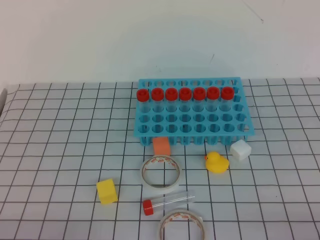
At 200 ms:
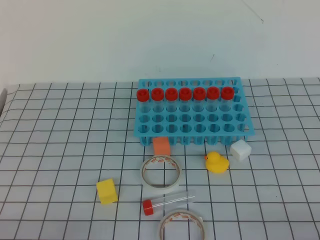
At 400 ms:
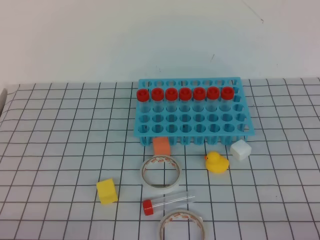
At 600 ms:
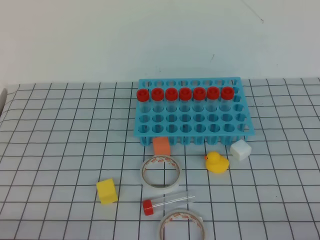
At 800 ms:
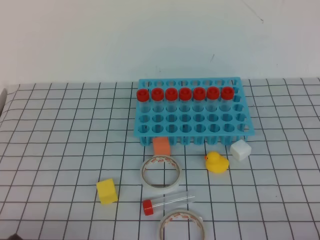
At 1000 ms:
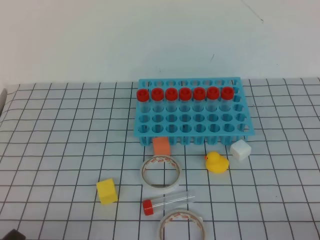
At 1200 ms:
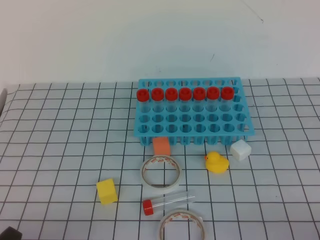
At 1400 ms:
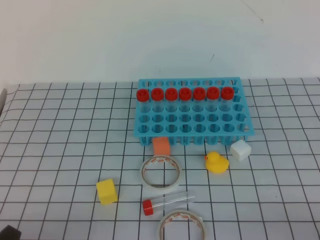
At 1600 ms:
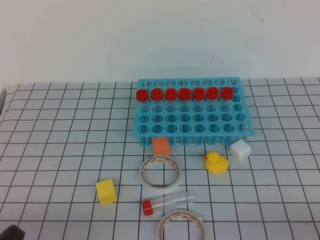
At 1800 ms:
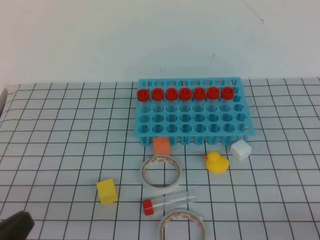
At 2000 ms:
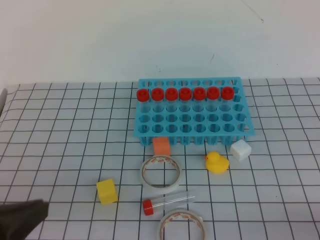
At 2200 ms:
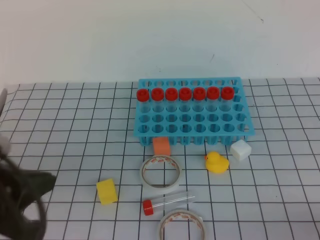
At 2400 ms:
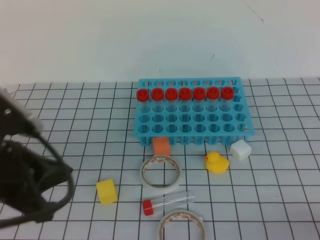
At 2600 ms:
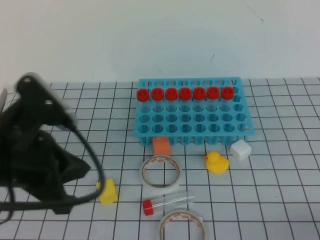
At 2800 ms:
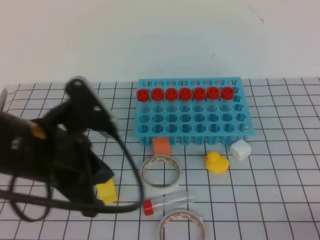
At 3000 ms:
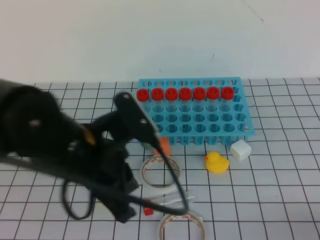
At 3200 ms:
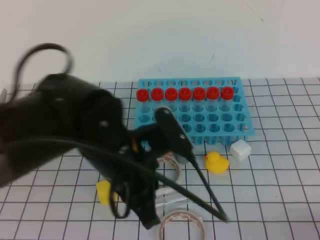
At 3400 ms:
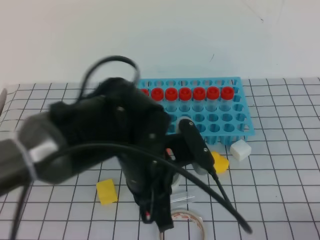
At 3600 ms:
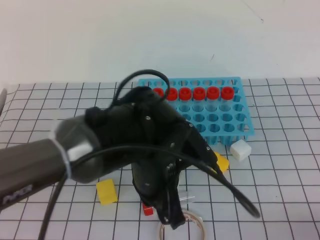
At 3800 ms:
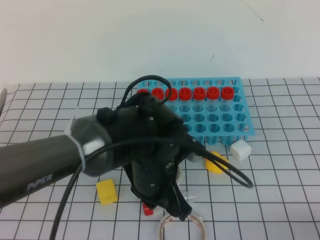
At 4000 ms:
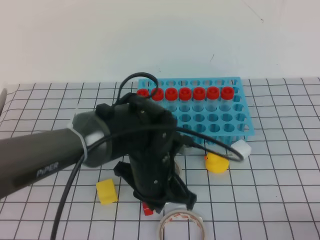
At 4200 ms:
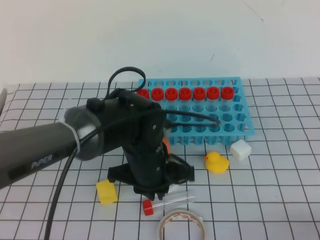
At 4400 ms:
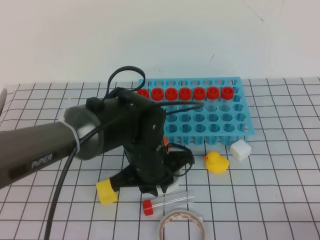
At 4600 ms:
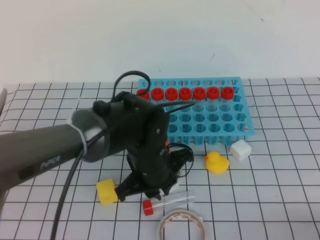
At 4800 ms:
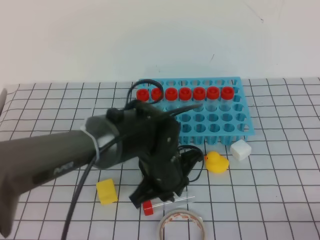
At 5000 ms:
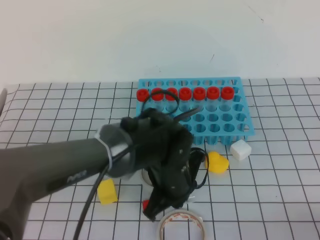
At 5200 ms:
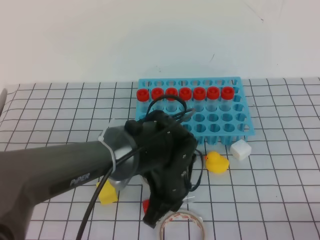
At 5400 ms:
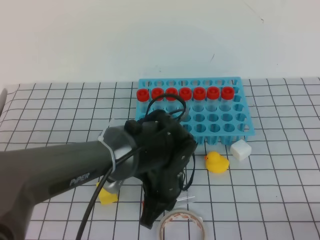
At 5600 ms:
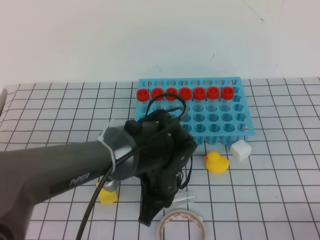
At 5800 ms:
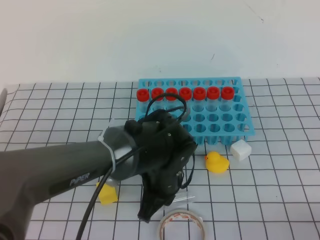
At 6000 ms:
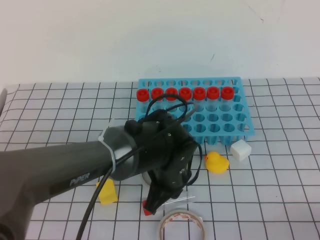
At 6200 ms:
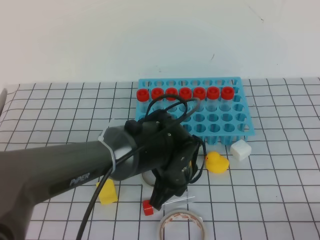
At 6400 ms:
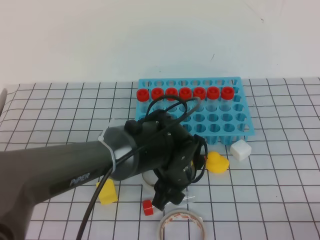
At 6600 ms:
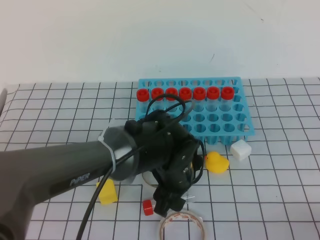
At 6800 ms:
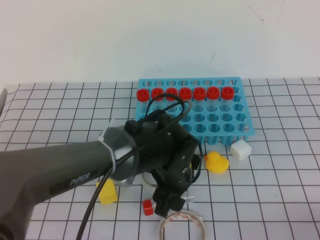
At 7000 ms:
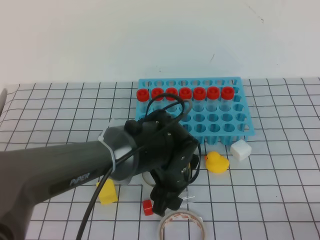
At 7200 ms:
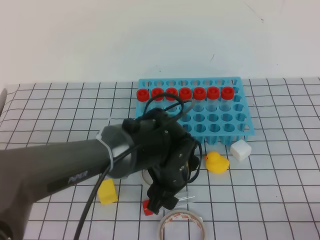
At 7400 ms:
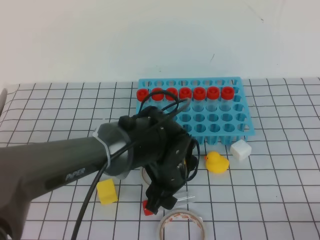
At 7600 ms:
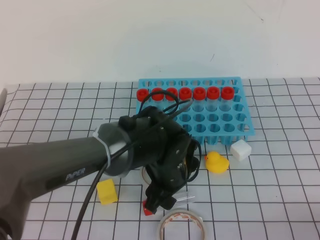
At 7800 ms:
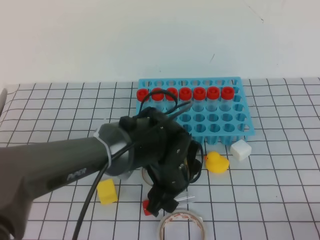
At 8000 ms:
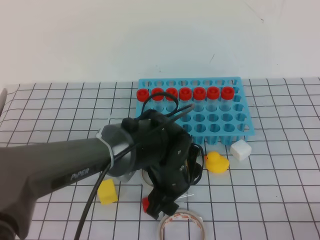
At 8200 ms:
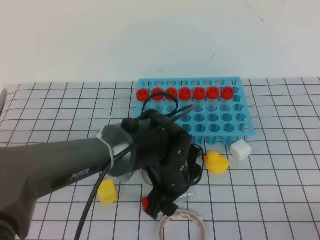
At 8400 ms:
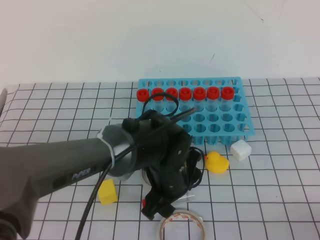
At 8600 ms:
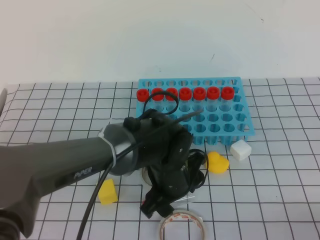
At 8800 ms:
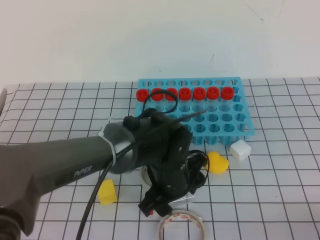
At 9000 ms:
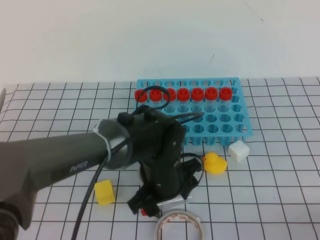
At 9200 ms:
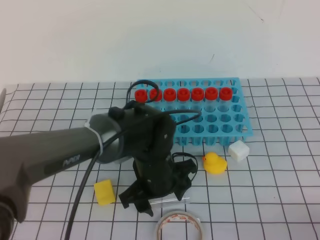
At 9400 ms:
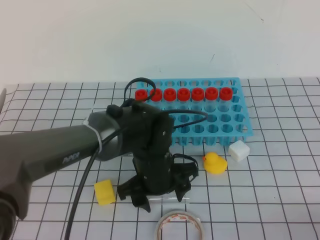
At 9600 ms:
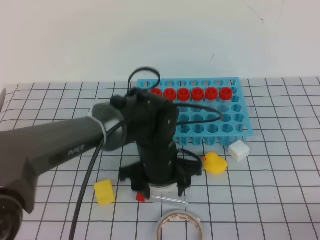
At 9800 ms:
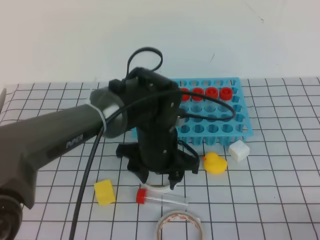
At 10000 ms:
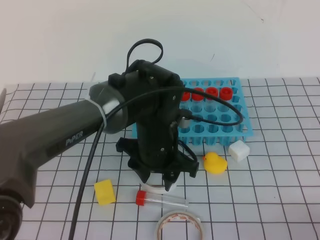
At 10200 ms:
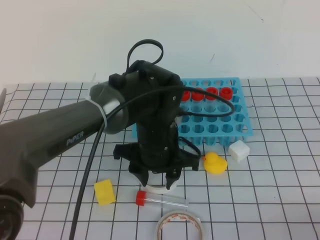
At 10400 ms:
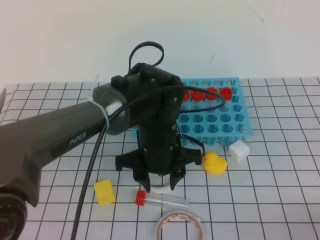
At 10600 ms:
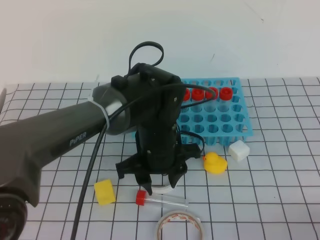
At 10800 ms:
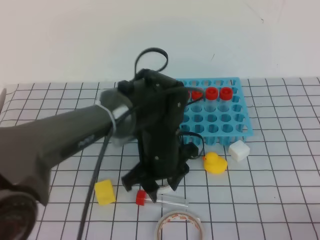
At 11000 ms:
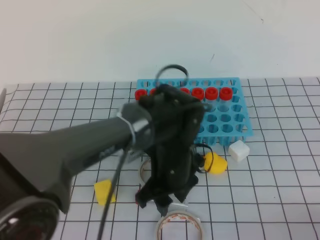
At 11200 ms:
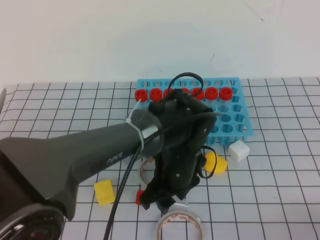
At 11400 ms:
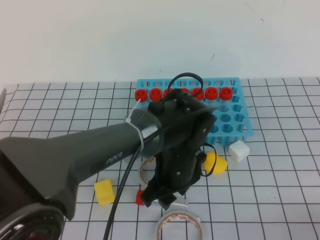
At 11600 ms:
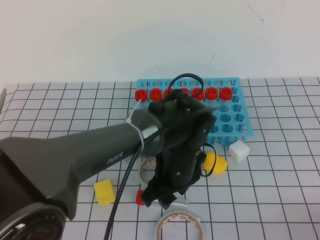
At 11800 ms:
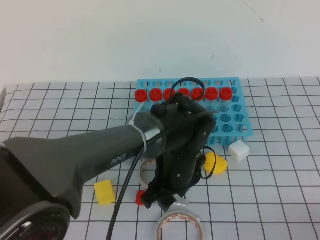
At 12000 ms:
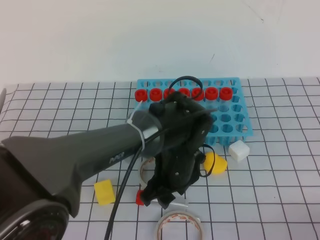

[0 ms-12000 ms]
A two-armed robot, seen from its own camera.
1600 ms to 3000 ms: The left gripper goes roughly 25 cm forward, to the right and upward.
3000 ms to 4400 ms: The left gripper travels downward, to the right and forward by approximately 15 cm.
6000 ms to 7600 ms: The left gripper opens.
9000 ms to 10400 ms: The left gripper changes place by approximately 5 cm.
10400 ms to 12000 ms: The left gripper moves roughly 5 cm.

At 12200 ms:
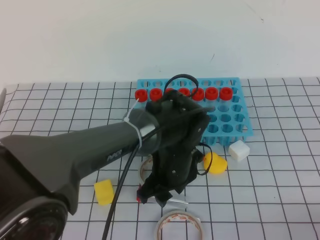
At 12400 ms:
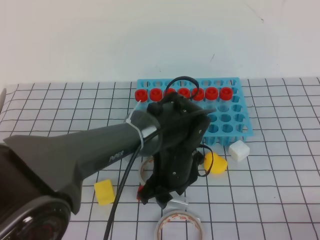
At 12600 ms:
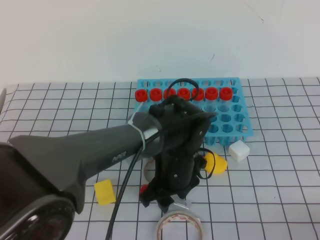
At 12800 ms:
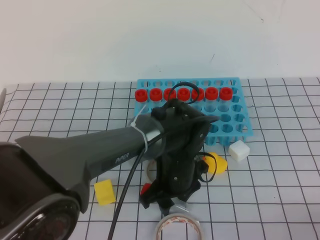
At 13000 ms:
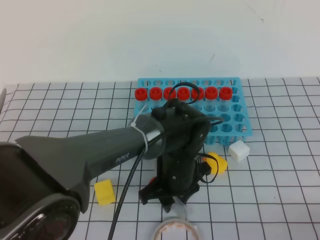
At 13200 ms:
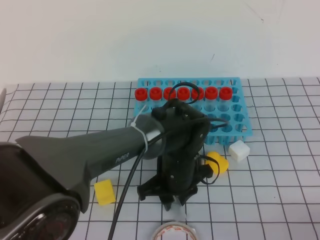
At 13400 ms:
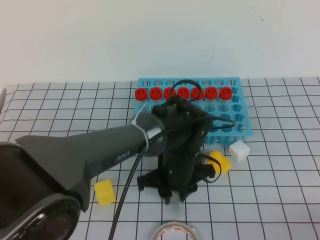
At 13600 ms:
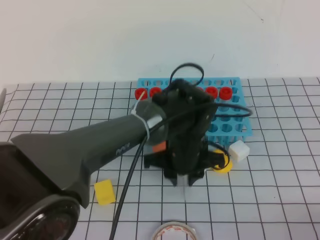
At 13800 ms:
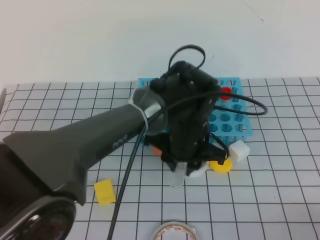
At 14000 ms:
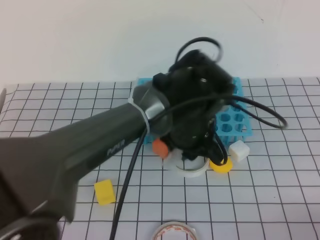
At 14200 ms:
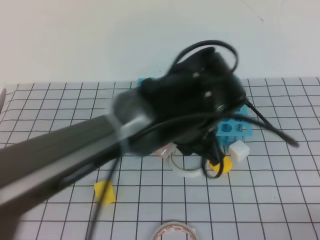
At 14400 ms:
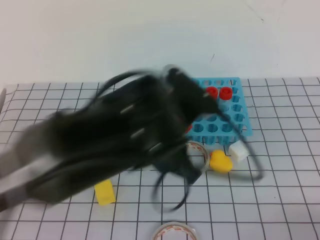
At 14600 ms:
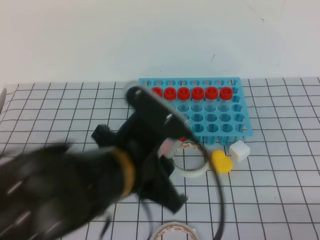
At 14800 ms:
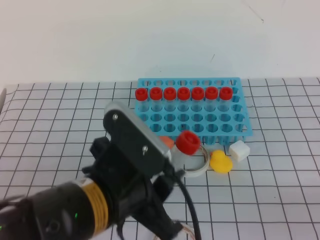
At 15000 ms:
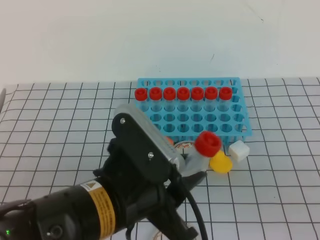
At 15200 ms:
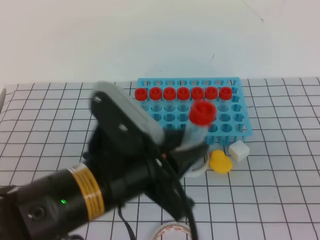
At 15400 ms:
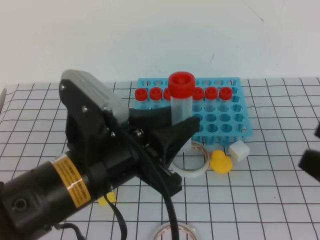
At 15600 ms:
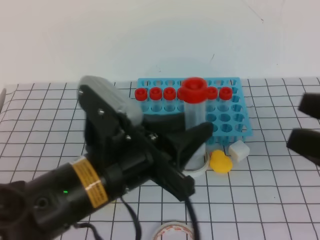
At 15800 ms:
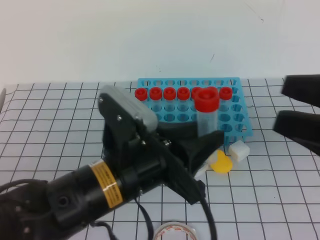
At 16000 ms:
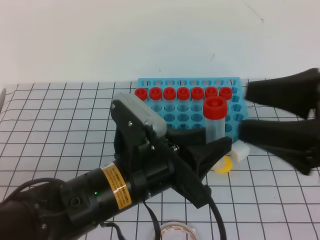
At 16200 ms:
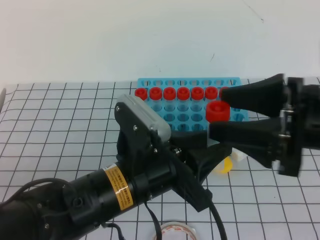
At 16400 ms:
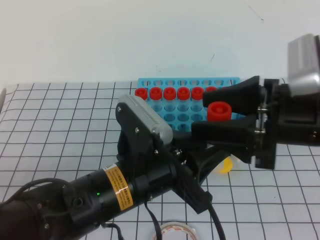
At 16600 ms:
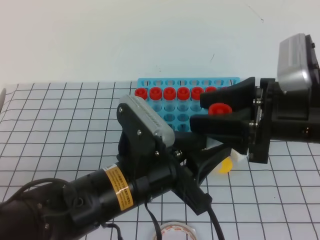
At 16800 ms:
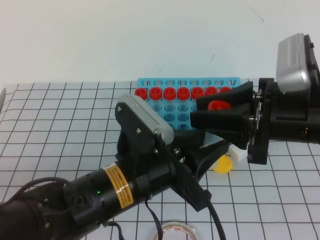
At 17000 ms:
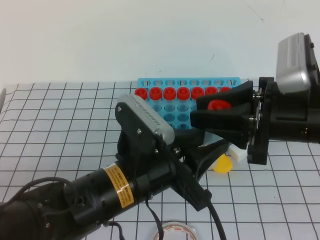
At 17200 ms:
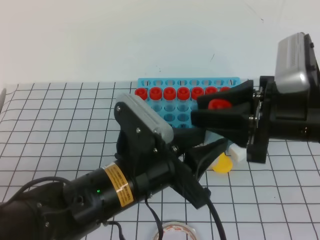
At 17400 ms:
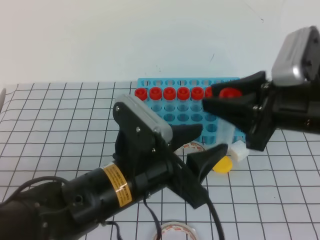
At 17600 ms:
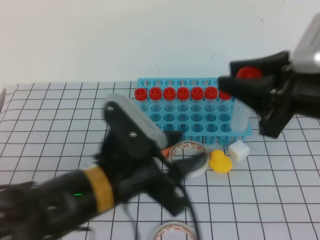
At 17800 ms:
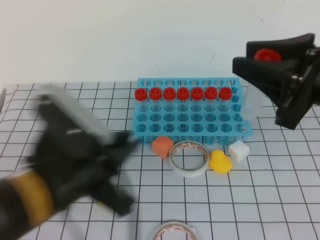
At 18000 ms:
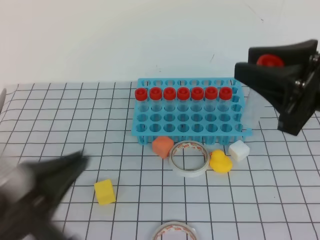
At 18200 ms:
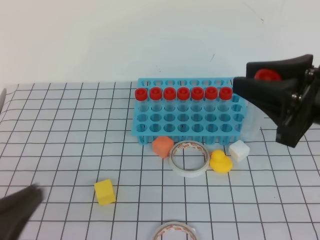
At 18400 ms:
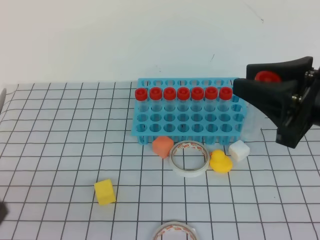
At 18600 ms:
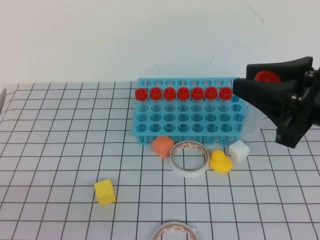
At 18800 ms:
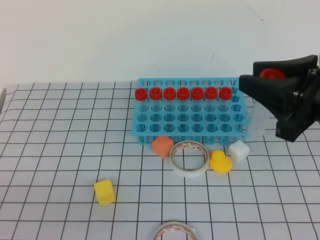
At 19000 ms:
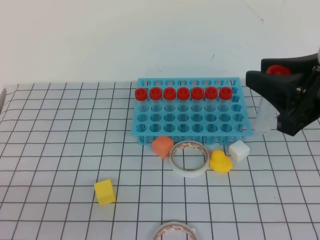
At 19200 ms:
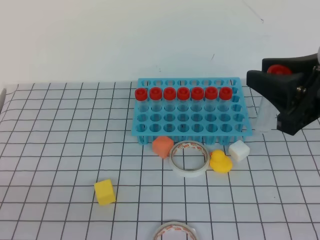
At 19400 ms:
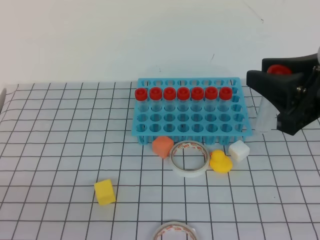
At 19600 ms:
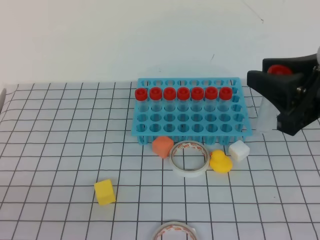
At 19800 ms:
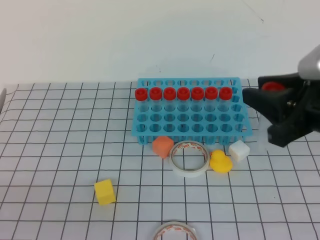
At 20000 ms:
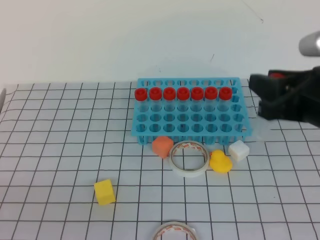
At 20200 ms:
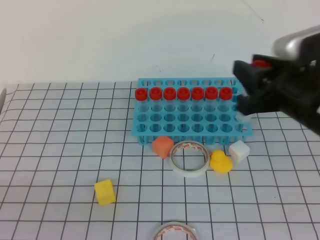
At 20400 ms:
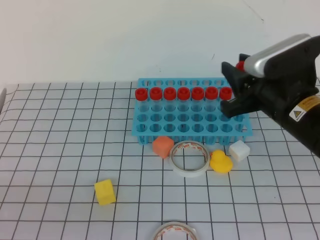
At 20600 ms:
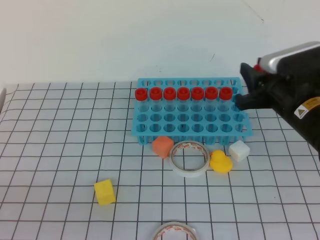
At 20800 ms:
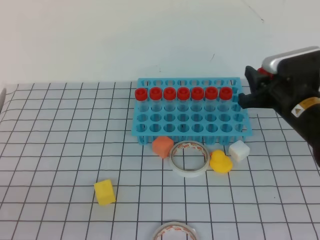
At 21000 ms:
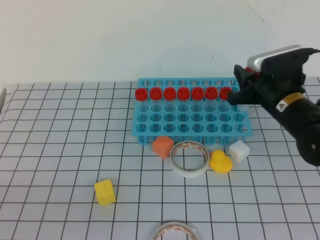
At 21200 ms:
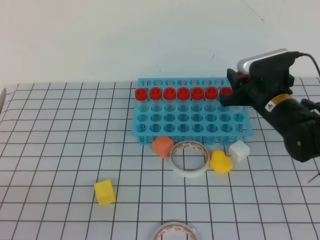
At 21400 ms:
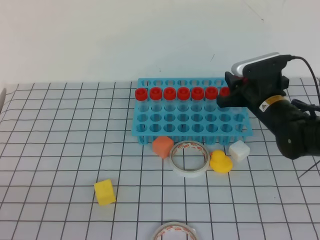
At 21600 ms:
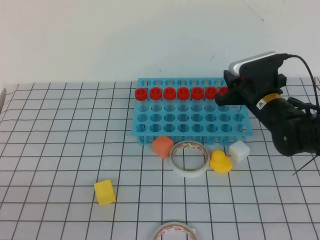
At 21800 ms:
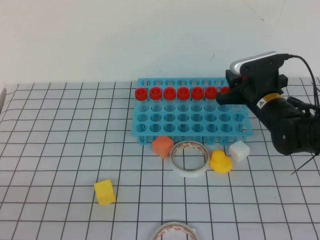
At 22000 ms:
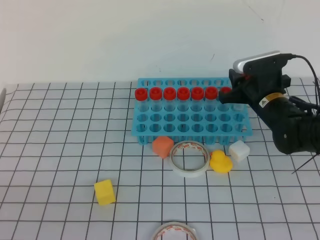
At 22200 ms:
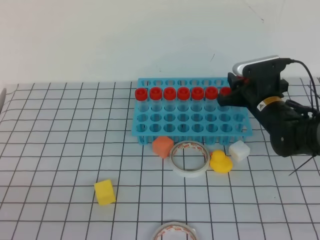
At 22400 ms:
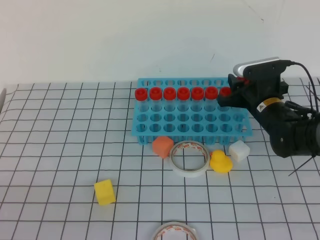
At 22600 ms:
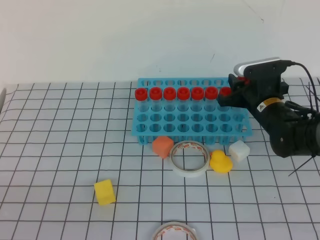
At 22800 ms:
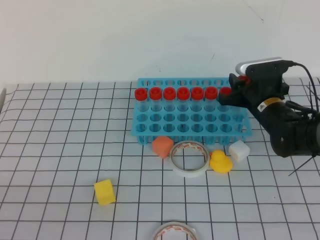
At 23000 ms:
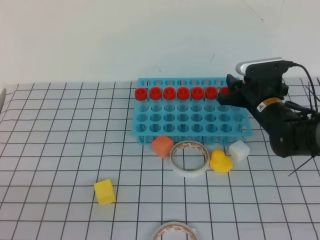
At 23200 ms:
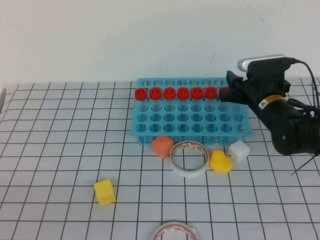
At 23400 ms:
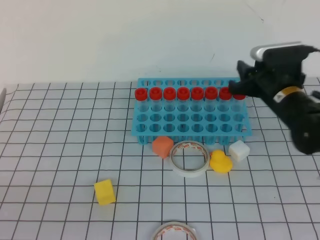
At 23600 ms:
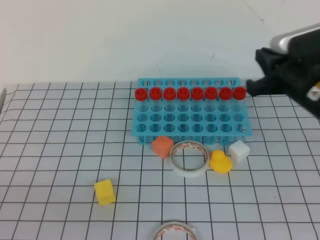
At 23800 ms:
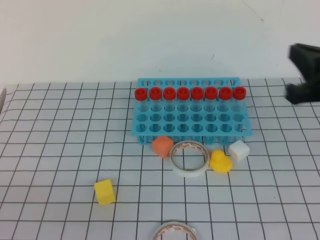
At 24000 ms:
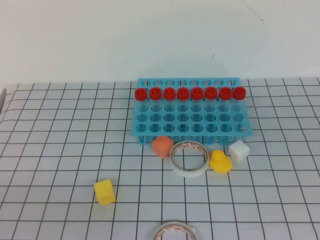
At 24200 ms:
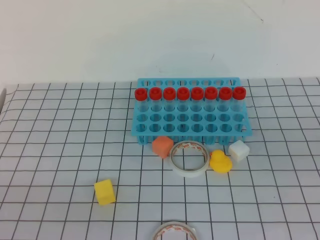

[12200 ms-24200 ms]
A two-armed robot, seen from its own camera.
13800 ms to 15200 ms: The right gripper shifts some 10 cm upward, while the left gripper travels backward, to the left and upward by roughly 20 cm.
15200 ms to 16600 ms: The right gripper is displaced forward and to the left by approximately 20 cm, and opens its fingers. The left gripper ends up some 5 cm from where it was.
16600 ms to 18200 ms: The right gripper ends up some 5 cm from where it was, while the left gripper heads to the left and backward, covering approximately 20 cm, and closes.
18200 ms to 19800 ms: The left gripper moves roughly 5 cm.
19800 ms to 21200 ms: The right gripper shifts about 20 cm forward and downward.
21200 ms to 22600 ms: The right gripper shifts by approximately 5 cm.
22600 ms to 24200 ms: The right gripper moves backward and upward, some 35 cm, and closes its fingers.
